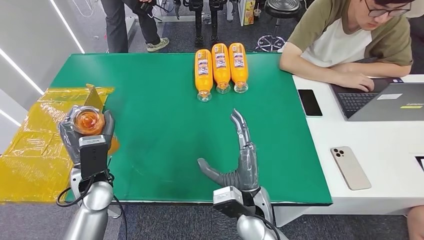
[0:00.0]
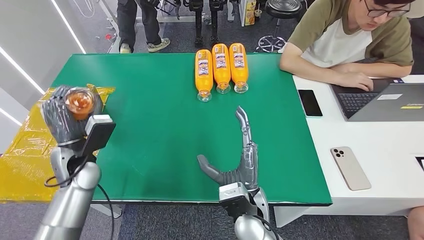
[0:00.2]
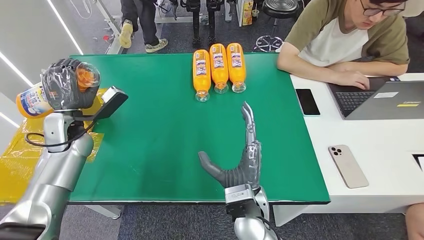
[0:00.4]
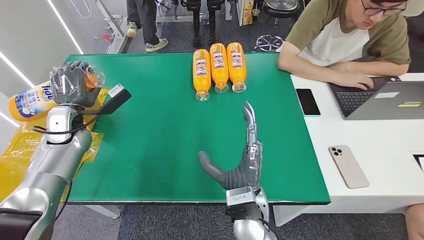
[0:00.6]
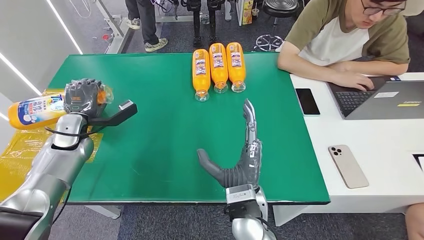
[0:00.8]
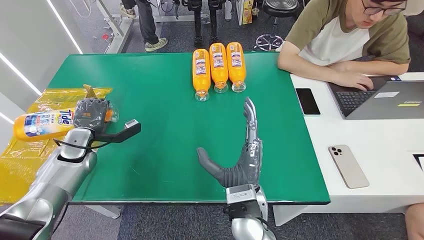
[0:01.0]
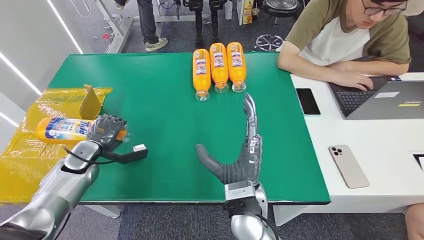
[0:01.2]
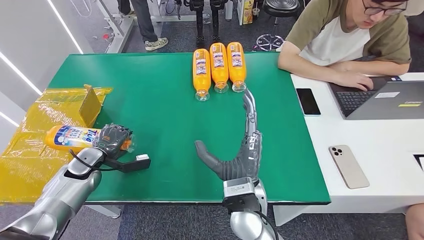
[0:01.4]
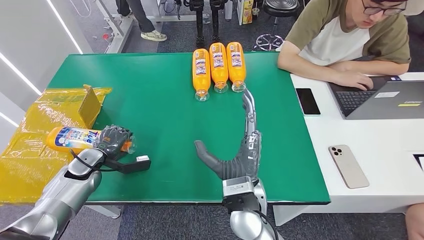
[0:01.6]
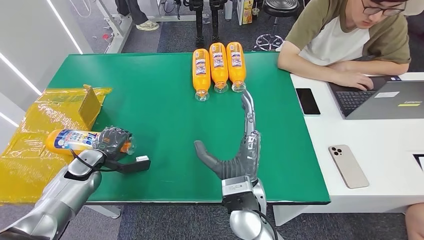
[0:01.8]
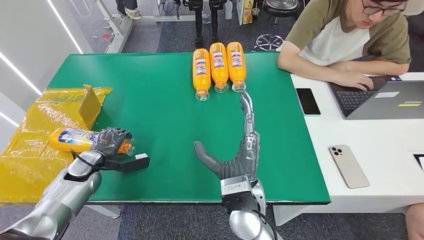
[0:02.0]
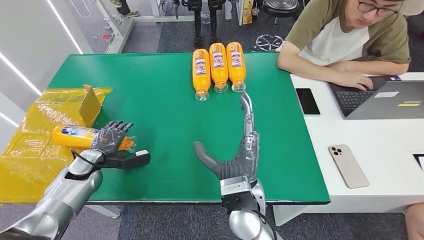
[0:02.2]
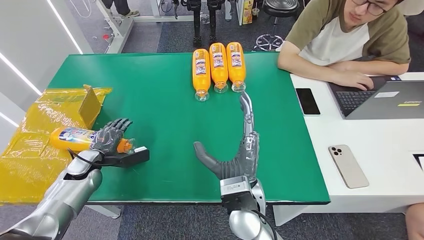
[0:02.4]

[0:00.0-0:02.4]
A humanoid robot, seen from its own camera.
Step, 0:00.0 to 0:02.4: Turn the bottle to the front side.
0:01.2 to 0:02.4: There are only small adjustments of the hands.
